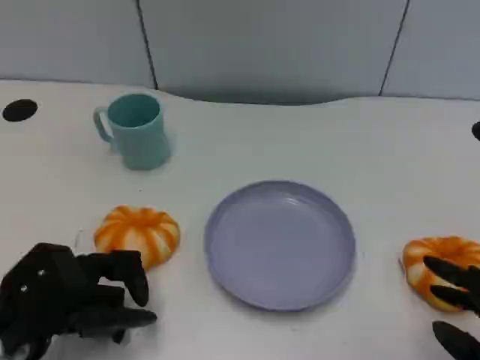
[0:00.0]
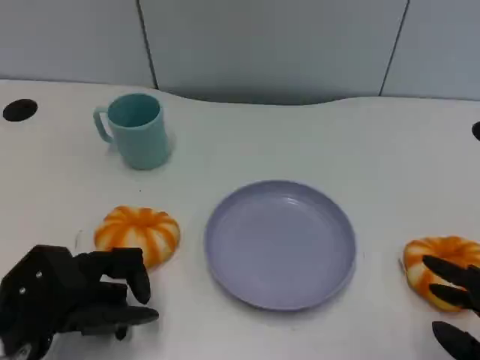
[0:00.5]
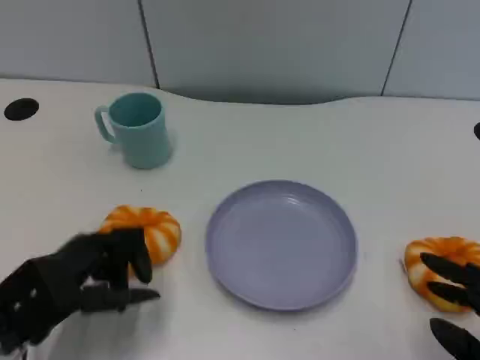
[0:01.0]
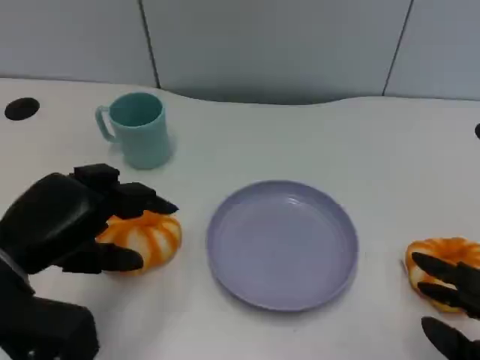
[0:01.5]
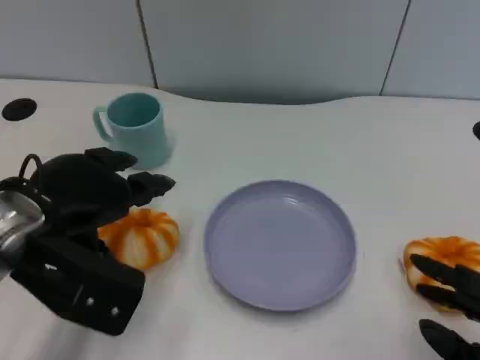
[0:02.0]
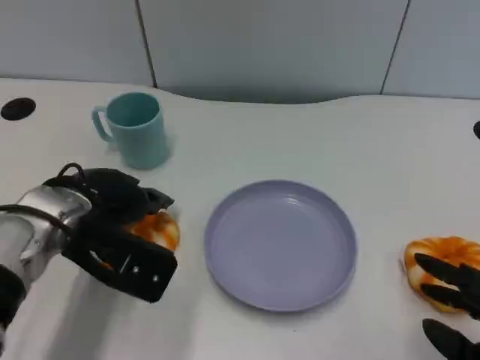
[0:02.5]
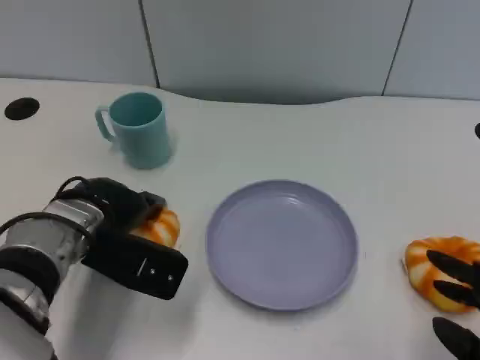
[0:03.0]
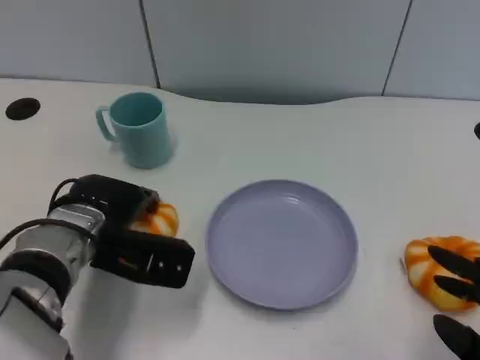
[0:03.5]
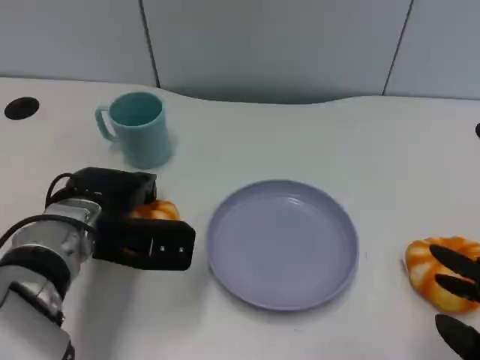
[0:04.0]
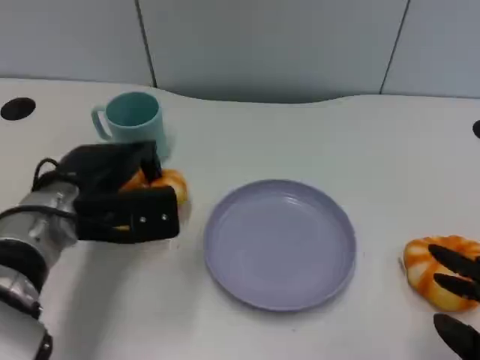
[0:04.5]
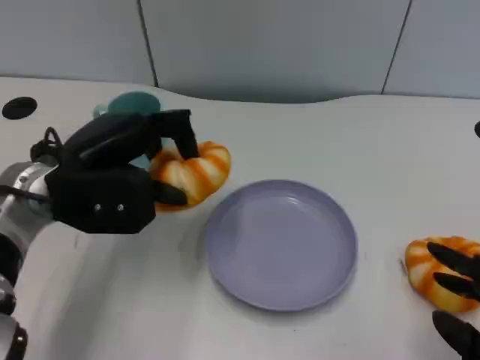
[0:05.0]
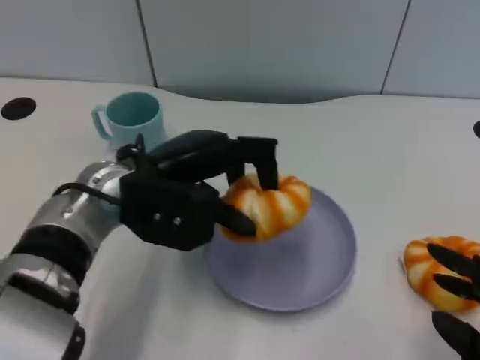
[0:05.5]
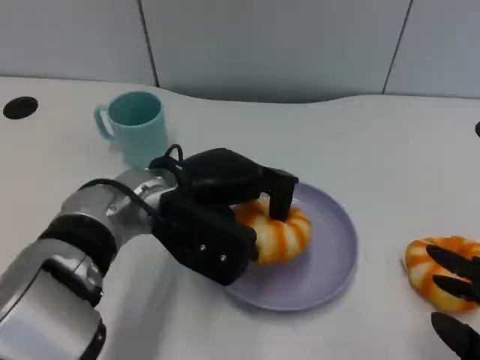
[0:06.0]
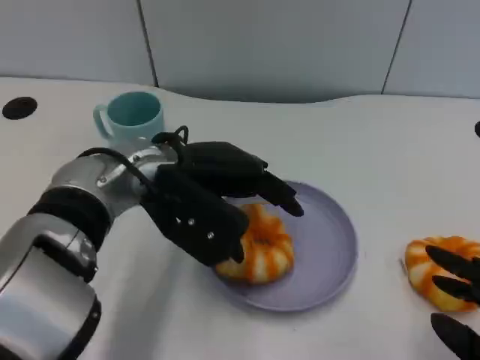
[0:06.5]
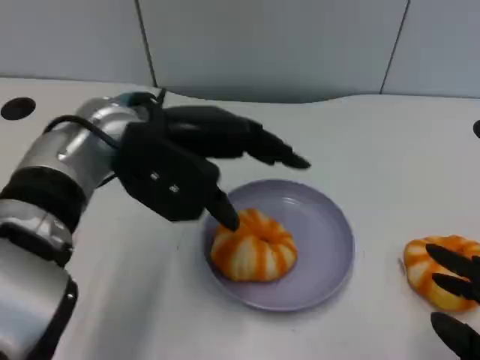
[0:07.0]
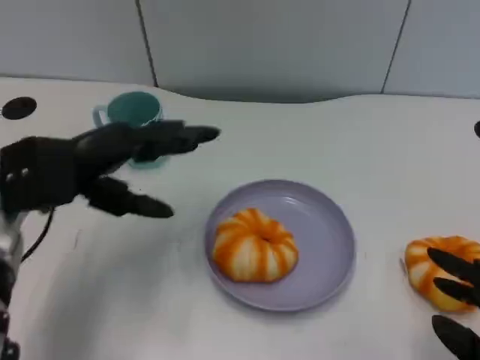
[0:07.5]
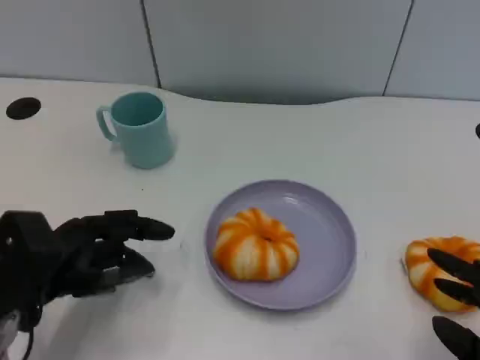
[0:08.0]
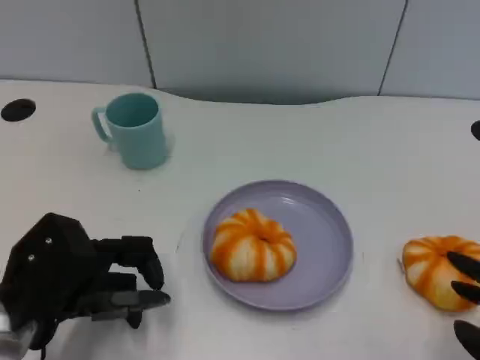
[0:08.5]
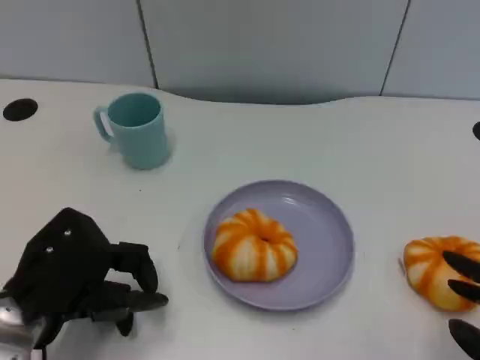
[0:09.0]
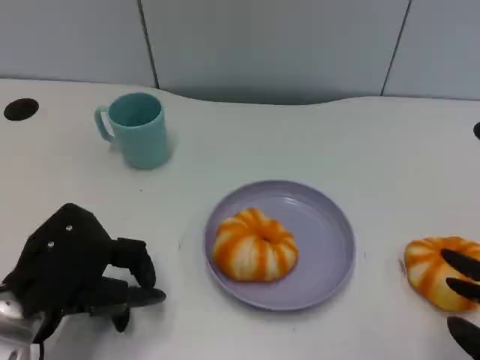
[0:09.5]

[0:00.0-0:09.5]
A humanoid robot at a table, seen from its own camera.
Task of the whole recording: Grasp the bread from the table and place it into the plate.
0:00.0 to 0:02.0: The left hand heads upward and forward, covering some 10 cm.
0:02.0 to 0:04.0: The left hand heads downward, covering approximately 10 cm.
0:04.0 to 0:05.5: The left hand travels upward and to the right by roughly 10 cm.
0:05.5 to 0:07.5: The left hand moves to the left, roughly 10 cm.
0:07.5 to 0:09.5: The left hand shifts about 10 cm backward and downward.

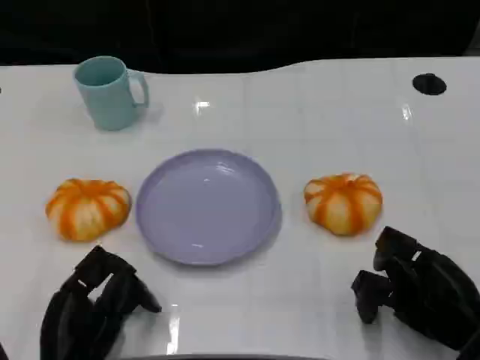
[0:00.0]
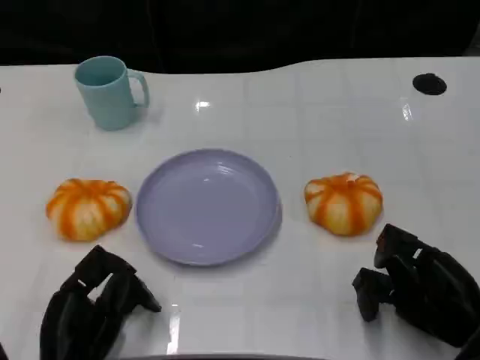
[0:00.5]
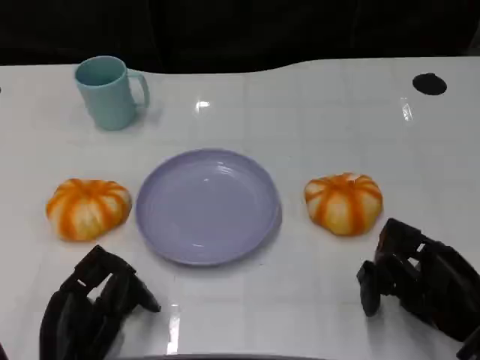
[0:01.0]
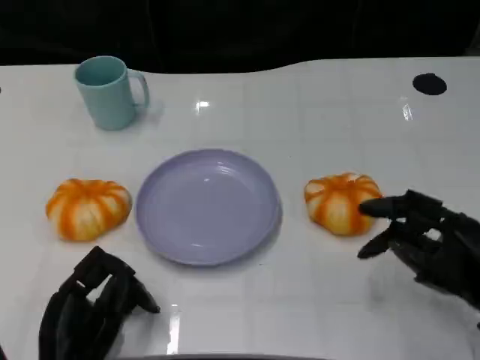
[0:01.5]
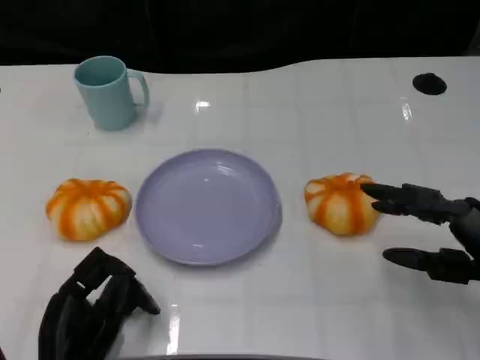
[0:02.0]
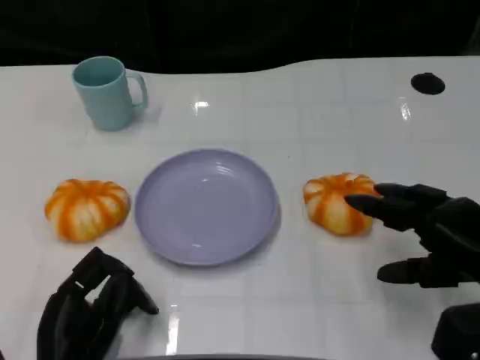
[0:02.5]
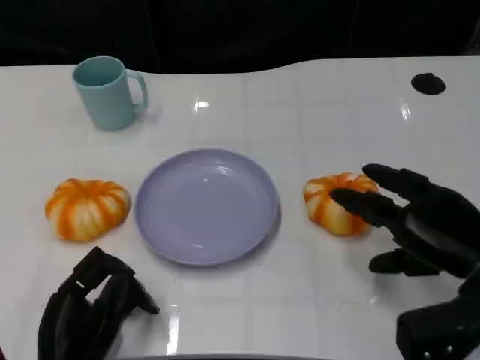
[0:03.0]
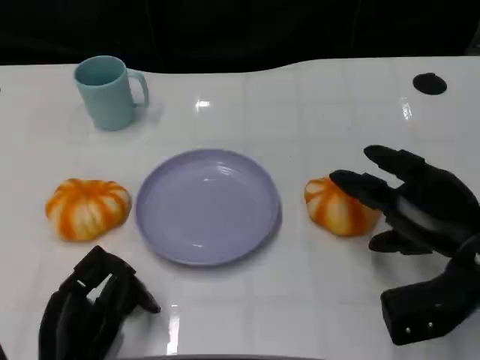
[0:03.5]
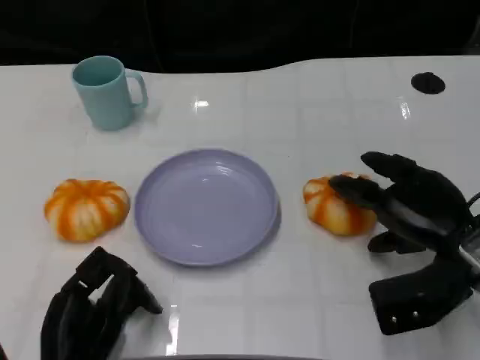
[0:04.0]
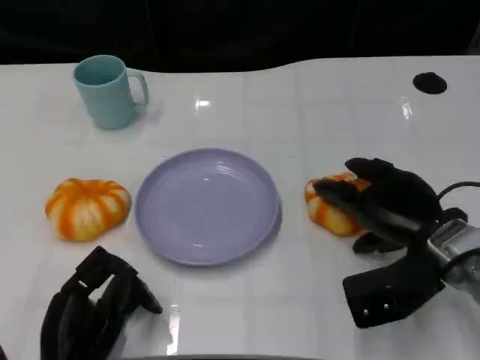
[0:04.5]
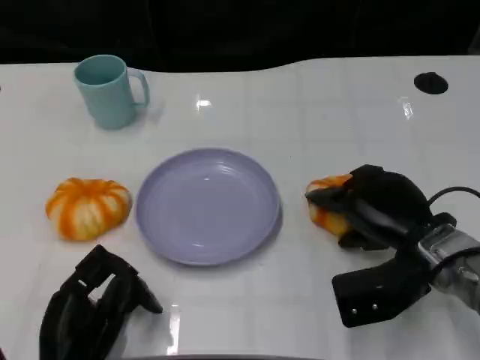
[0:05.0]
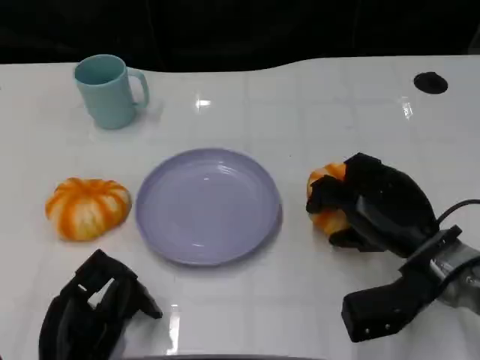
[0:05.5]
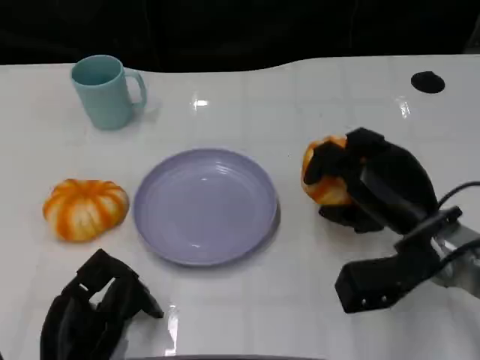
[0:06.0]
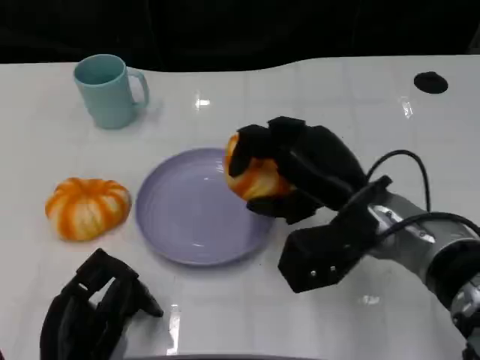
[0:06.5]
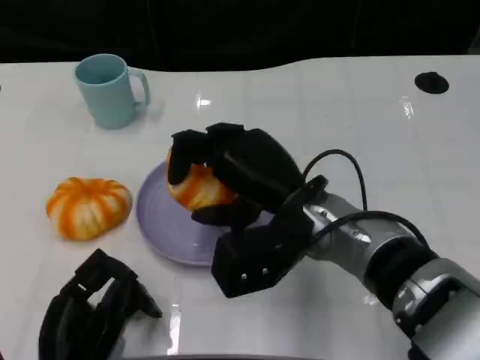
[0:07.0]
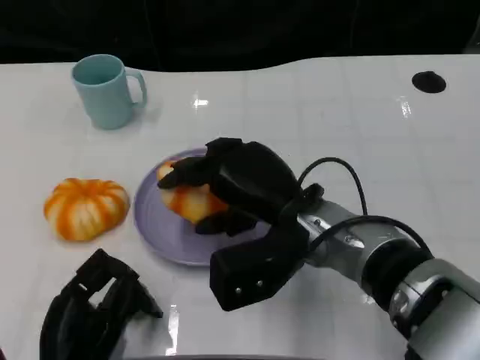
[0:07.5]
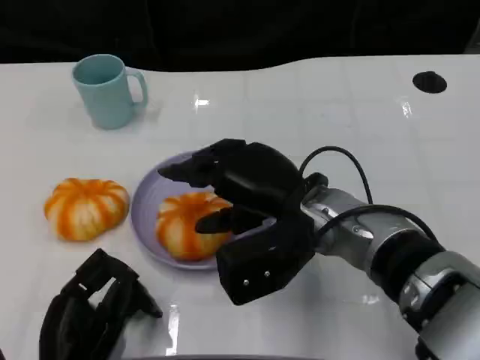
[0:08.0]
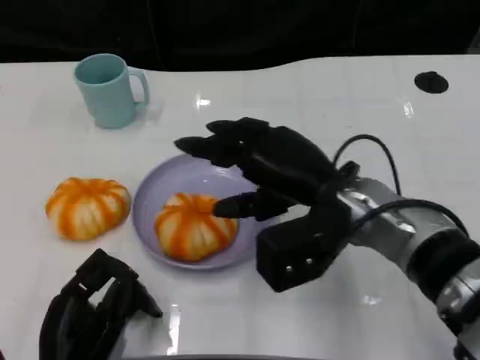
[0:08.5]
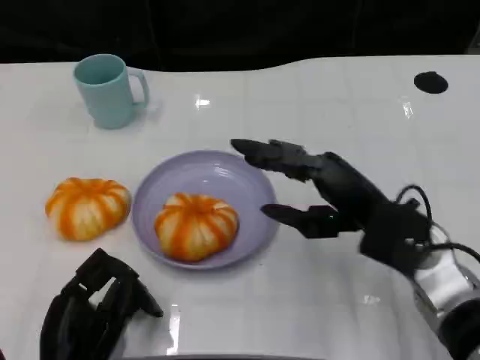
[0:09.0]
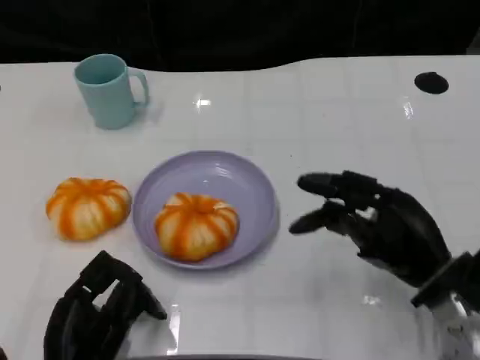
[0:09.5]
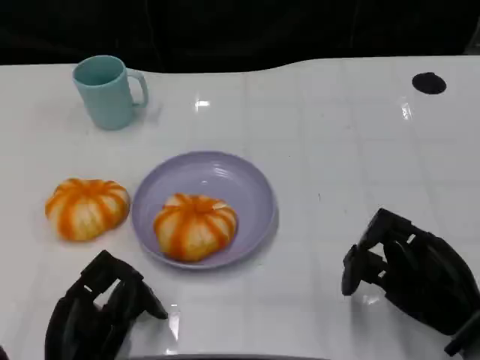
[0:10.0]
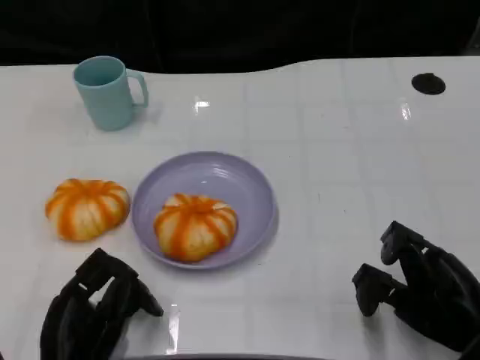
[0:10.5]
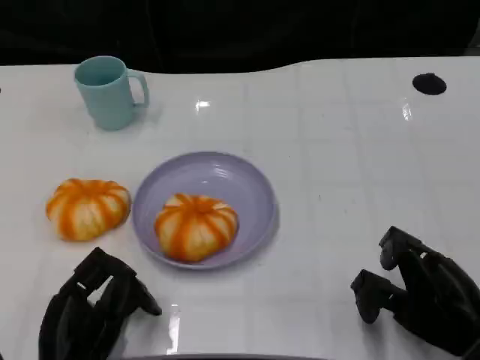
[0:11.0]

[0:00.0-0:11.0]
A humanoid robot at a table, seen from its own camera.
Task of the whole recording: Grasp the bread from the table and place it into the plate.
0:00.0 to 0:02.0: The right hand shifts some 5 cm upward.
0:02.0 to 0:03.5: The right hand changes place by roughly 5 cm.
0:03.5 to 0:05.5: The right hand shifts by approximately 5 cm.
0:05.5 to 0:07.5: The right hand goes about 15 cm to the left and upward.
0:07.5 to 0:09.0: The right hand goes some 10 cm to the right.
0:09.0 to 0:11.0: The right hand is displaced to the right, backward and downward by some 15 cm.

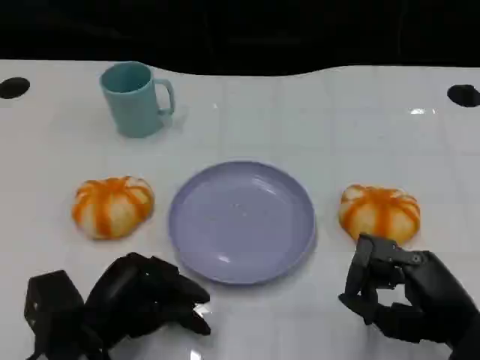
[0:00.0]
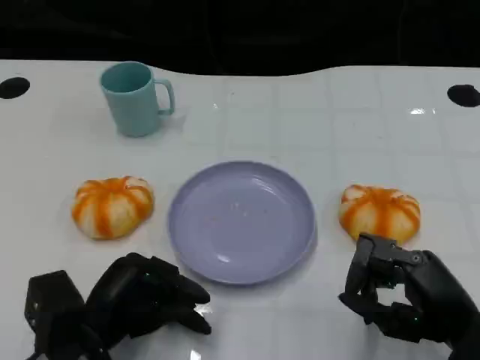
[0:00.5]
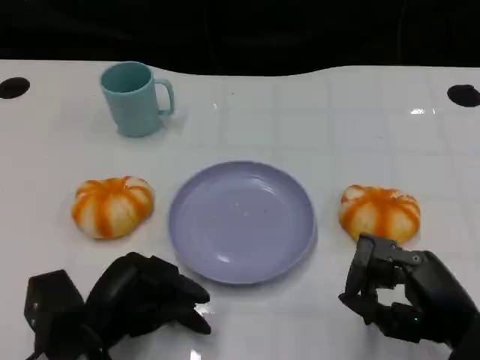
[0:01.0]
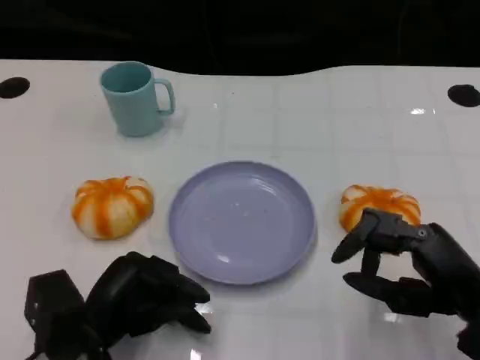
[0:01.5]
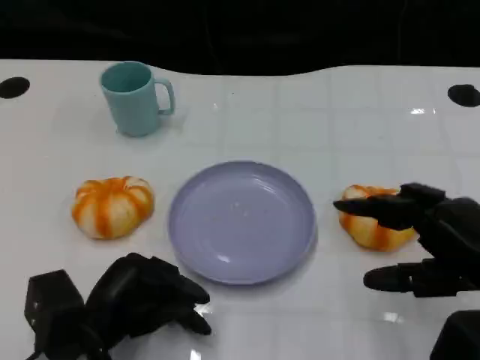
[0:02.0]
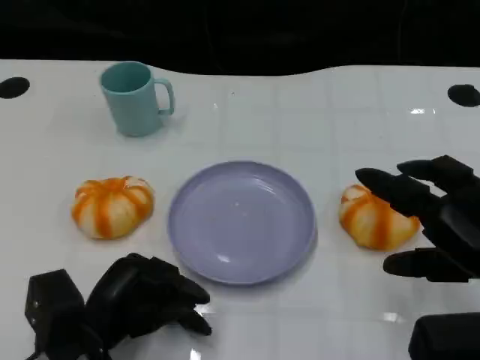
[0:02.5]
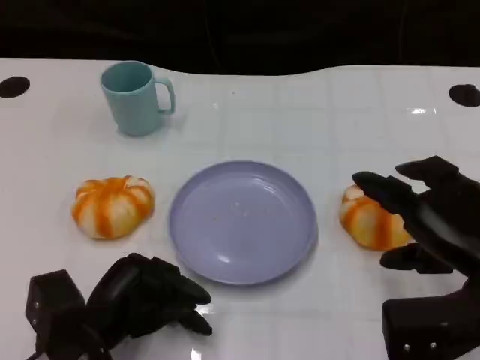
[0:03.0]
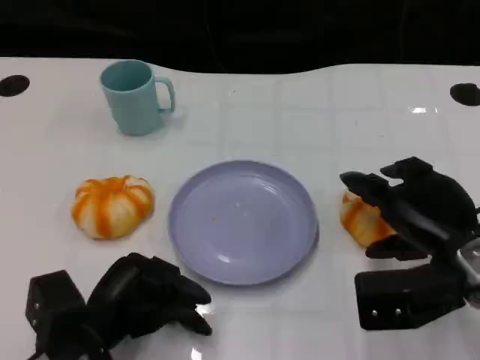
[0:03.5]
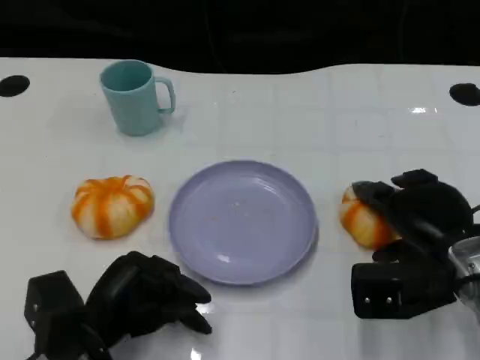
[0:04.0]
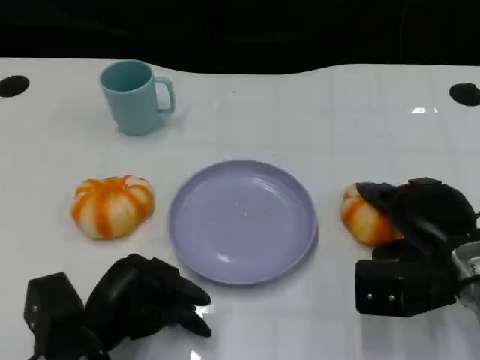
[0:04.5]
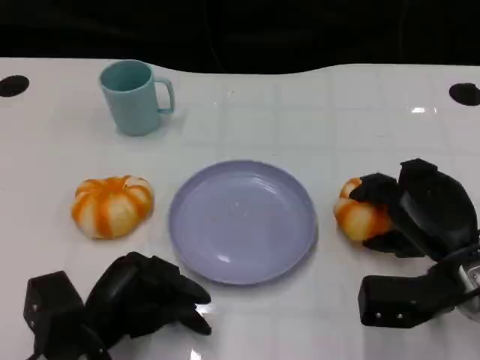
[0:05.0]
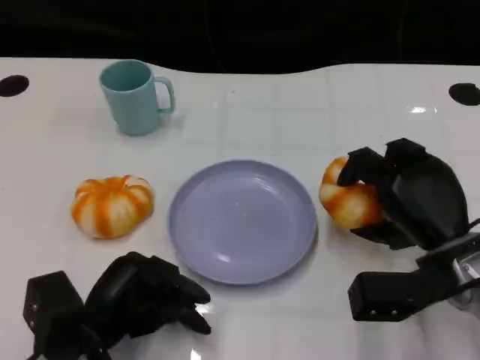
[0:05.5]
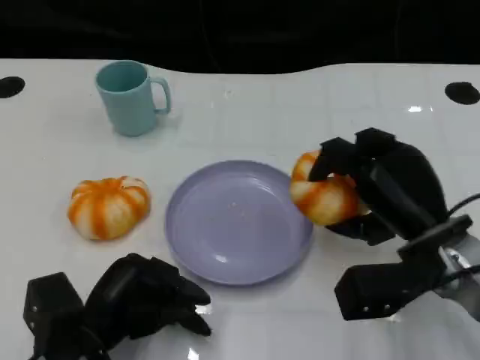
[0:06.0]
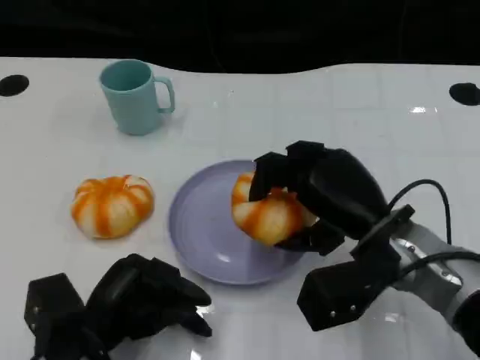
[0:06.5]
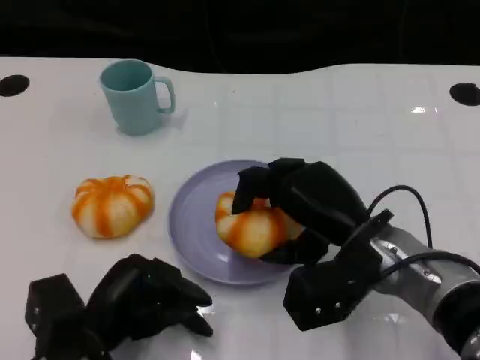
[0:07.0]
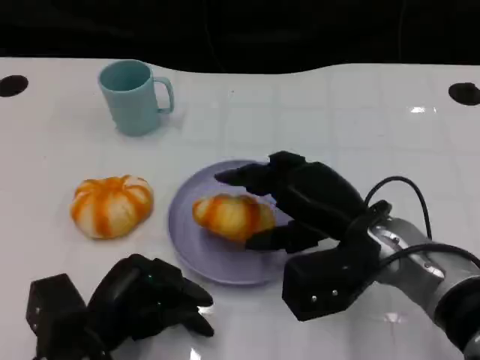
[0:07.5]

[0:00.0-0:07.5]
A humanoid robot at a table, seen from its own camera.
Task of the whole recording: Grasp the bread from the table and place it into the plate.
0:00.0 to 0:02.0: The right hand moves upward, roughly 5 cm.
0:02.0 to 0:04.0: The right hand travels forward and downward by roughly 10 cm.
0:05.5 to 0:07.5: The right hand heads to the left, covering roughly 10 cm.
